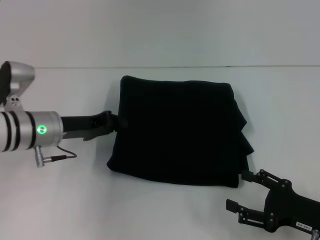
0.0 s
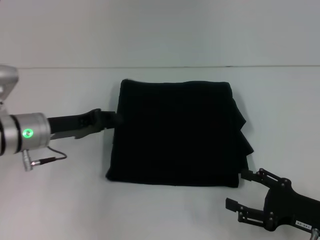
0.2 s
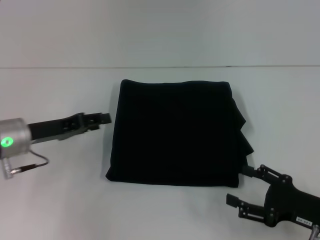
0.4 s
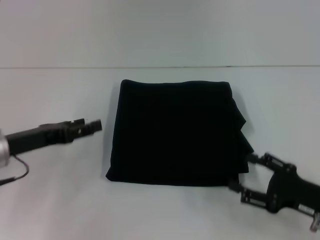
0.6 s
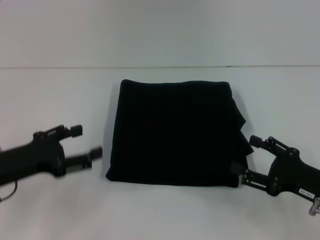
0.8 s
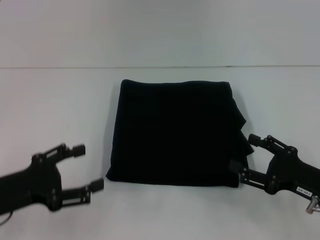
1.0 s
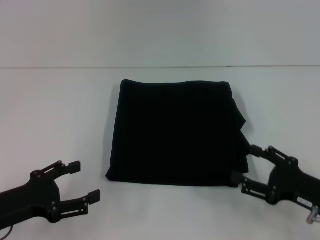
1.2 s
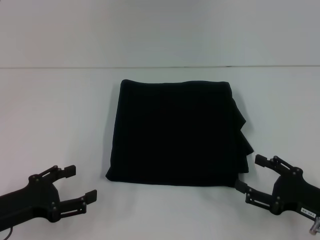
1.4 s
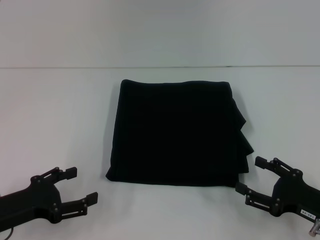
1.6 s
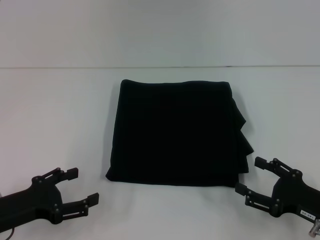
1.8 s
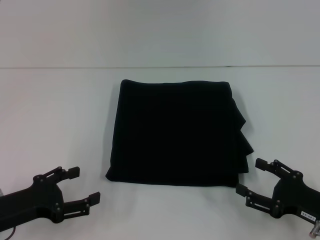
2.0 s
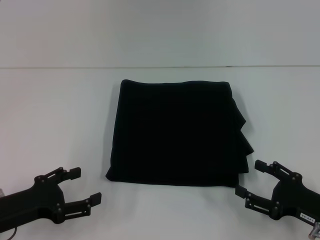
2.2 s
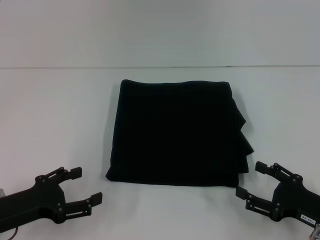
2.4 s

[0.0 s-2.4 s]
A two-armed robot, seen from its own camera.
0.0 to 1.2 s: The left gripper goes some 15 cm backward and to the left, and opens up.
1.2 to 2.4 s: There are only small adjustments of the grippers.
